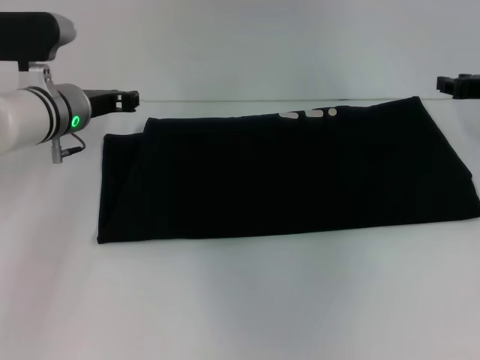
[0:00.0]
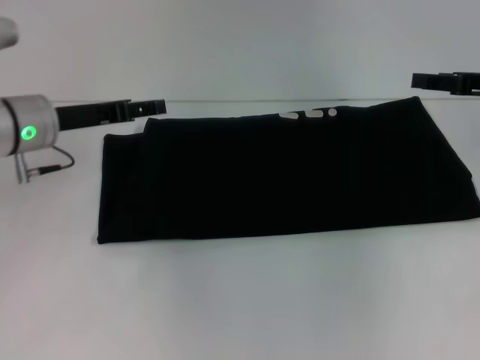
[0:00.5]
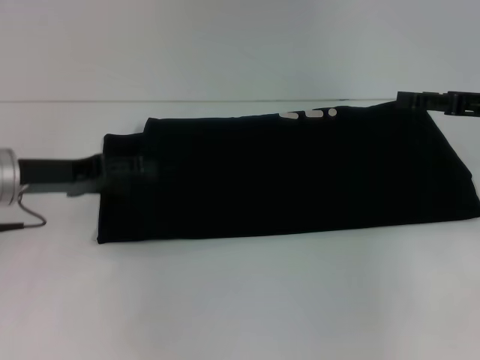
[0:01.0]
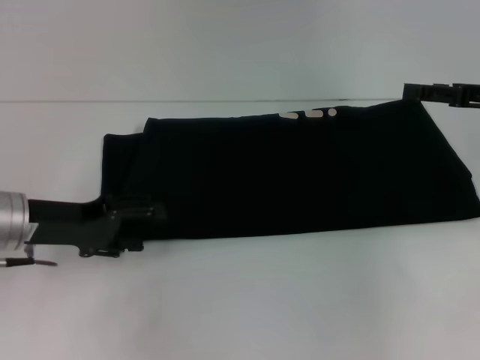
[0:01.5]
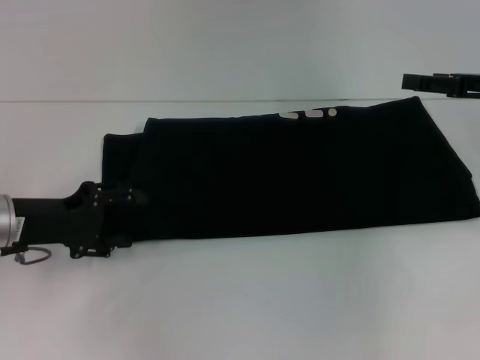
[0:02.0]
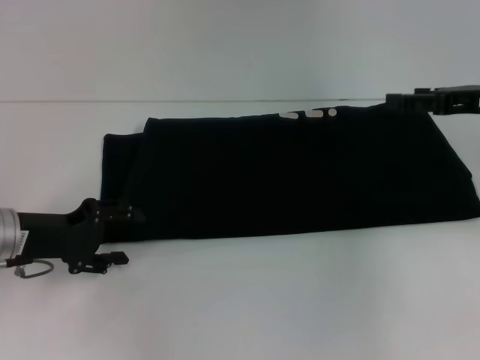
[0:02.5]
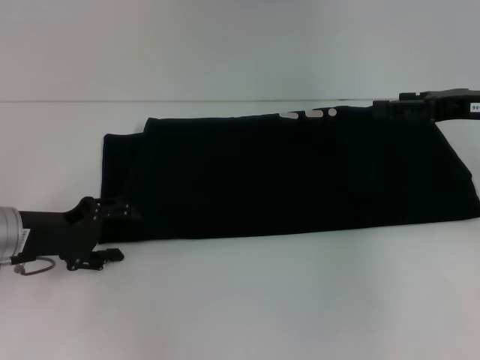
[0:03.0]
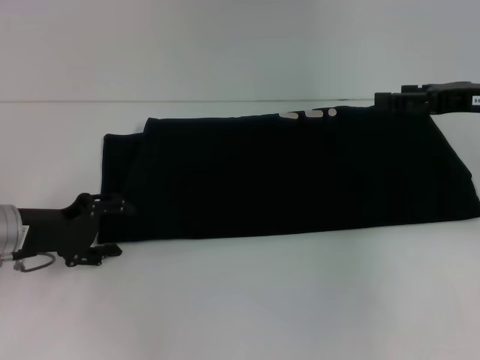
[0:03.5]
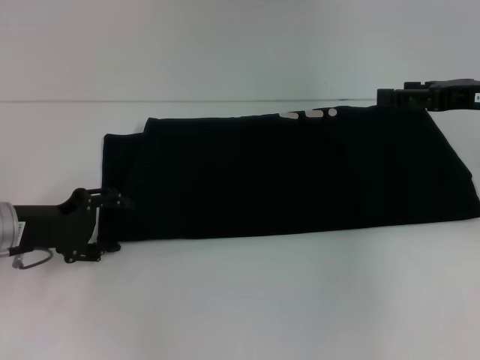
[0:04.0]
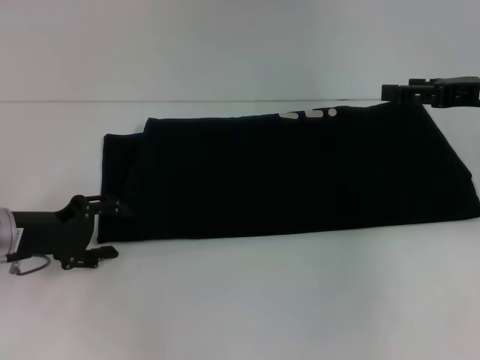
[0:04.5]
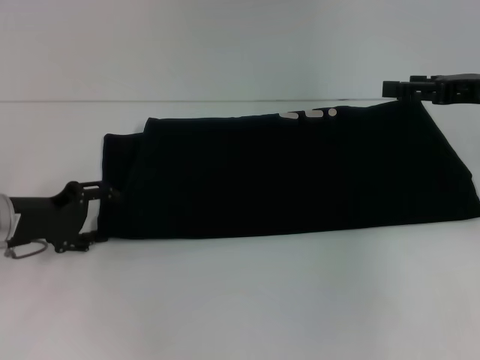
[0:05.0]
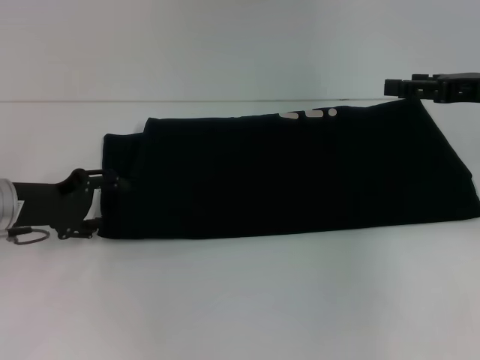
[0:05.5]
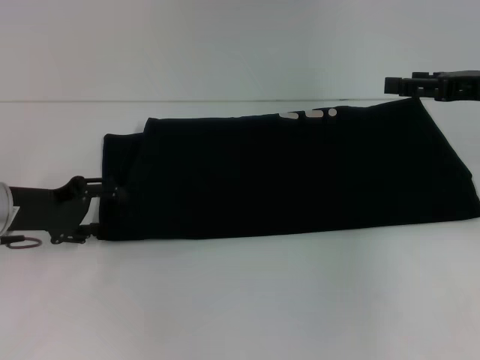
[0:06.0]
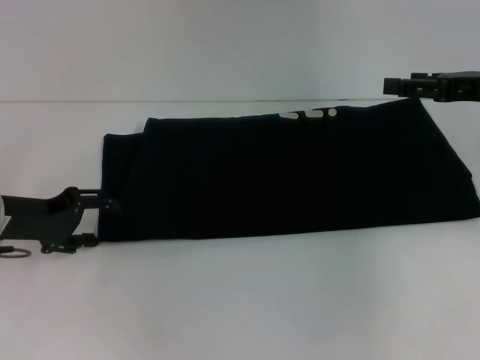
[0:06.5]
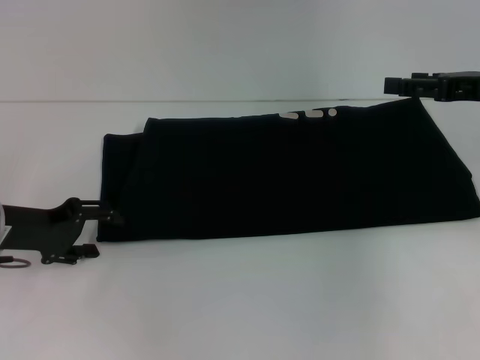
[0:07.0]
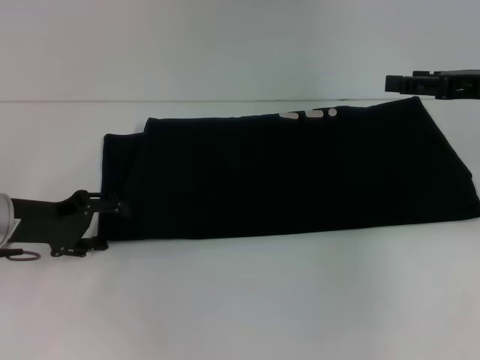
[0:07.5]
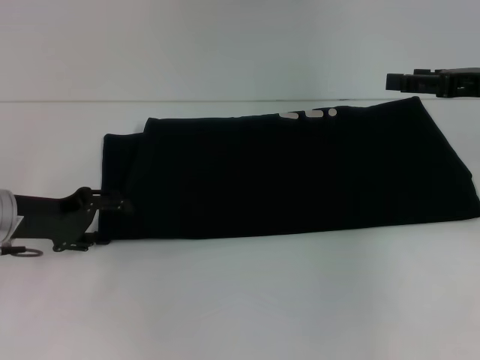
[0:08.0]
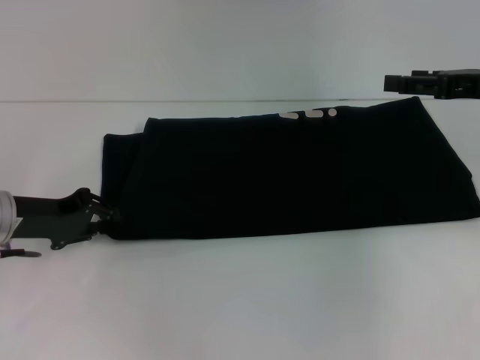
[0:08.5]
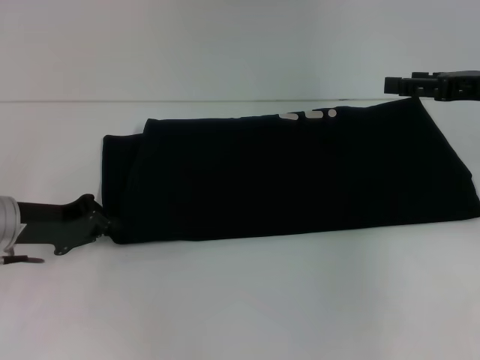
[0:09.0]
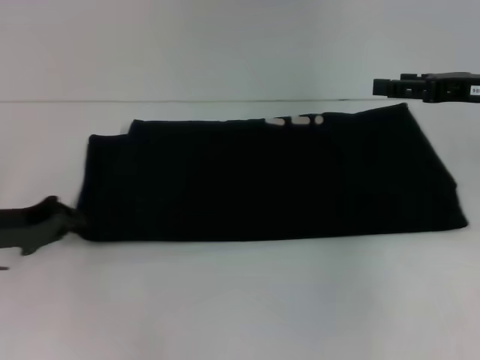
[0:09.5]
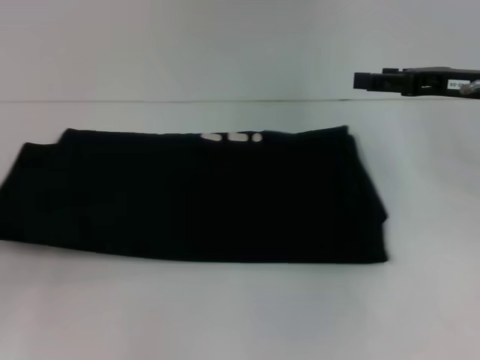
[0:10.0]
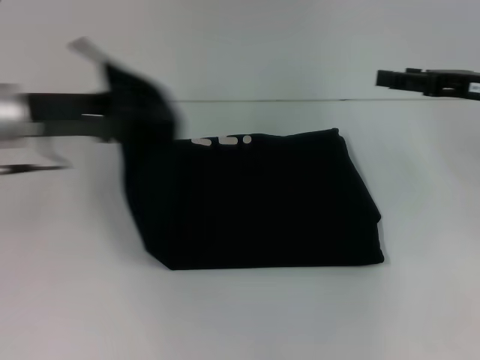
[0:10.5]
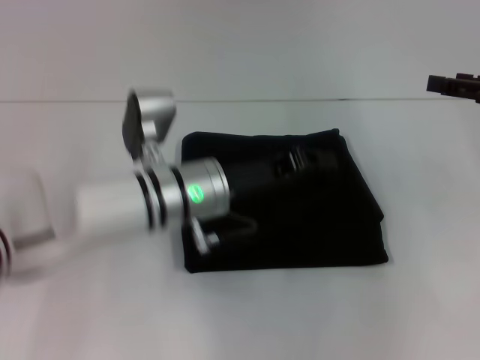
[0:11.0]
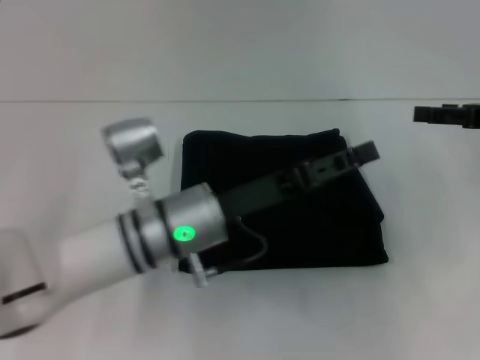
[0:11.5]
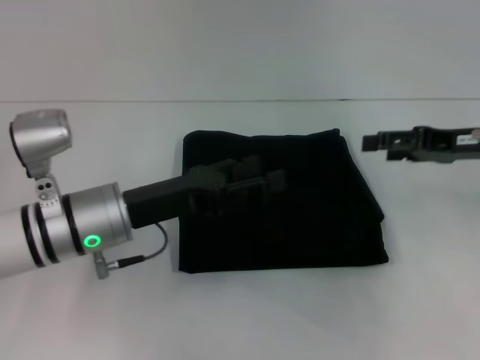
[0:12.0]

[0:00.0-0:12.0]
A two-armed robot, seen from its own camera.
Step, 0:00.0 to 0:11.5: Fold the clothes with your left hand.
0:00.0 to 0:02.0: The right gripper opens up. Meanwhile the left gripper travels backward and to the left by some 15 cm, and opens up.
0:02.0 to 0:08.0: The grippers stay close to where they were, moving slightly.
0:08.0 to 0:10.0: The left gripper is displaced to the left and backward by some 10 cm, and closes.
0:10.0 to 0:12.0: The left gripper travels to the right by roughly 25 cm, and opens up.

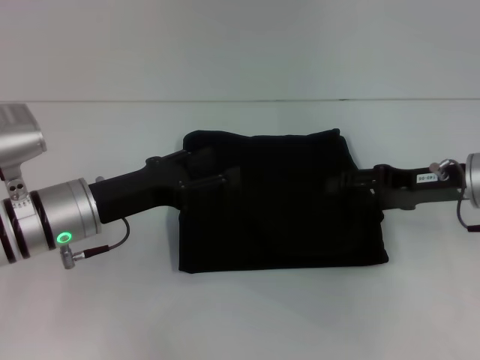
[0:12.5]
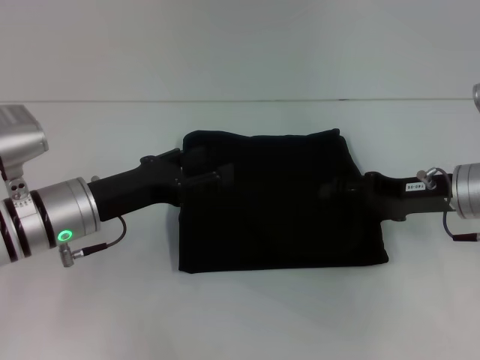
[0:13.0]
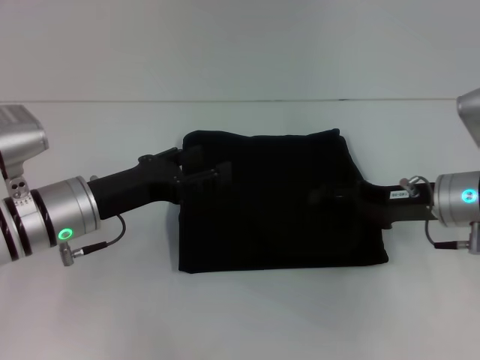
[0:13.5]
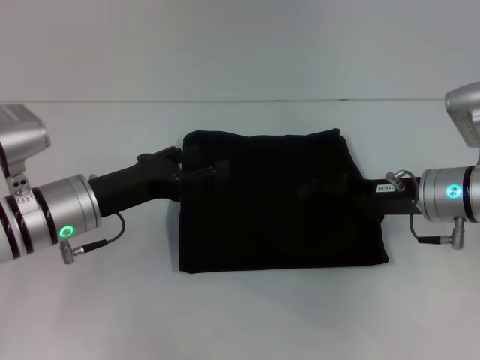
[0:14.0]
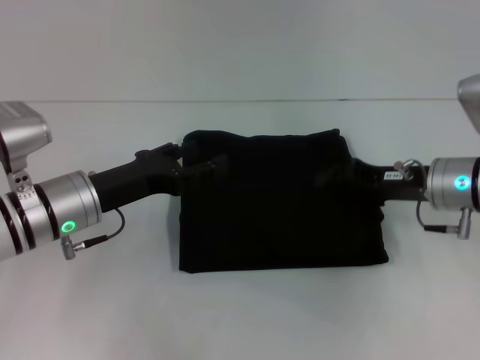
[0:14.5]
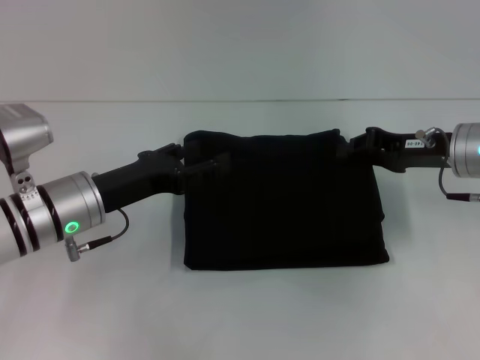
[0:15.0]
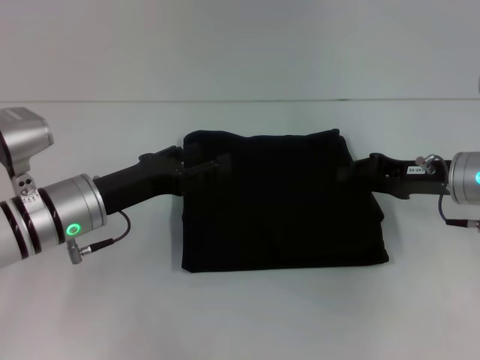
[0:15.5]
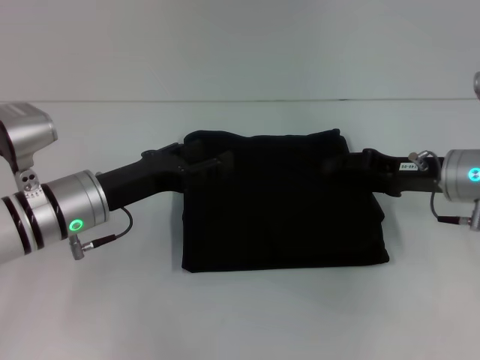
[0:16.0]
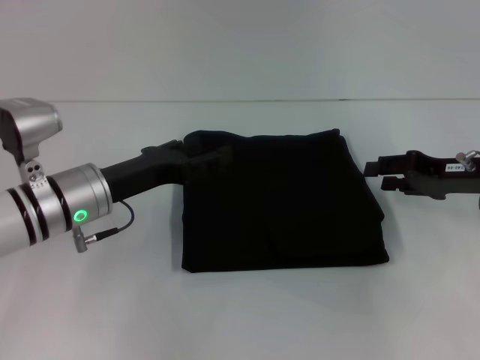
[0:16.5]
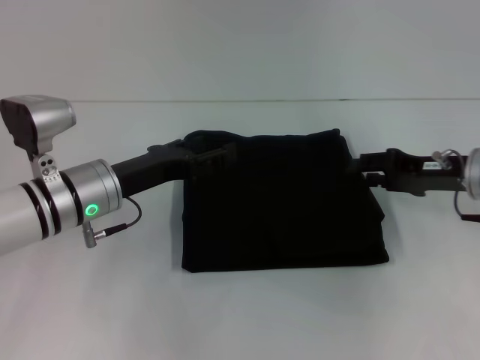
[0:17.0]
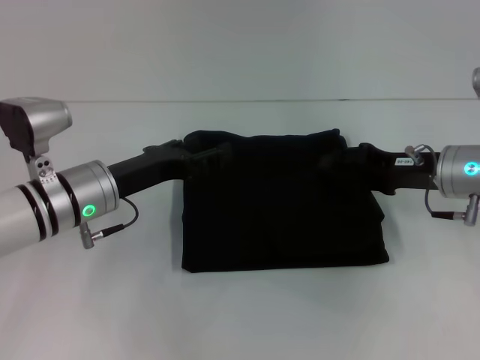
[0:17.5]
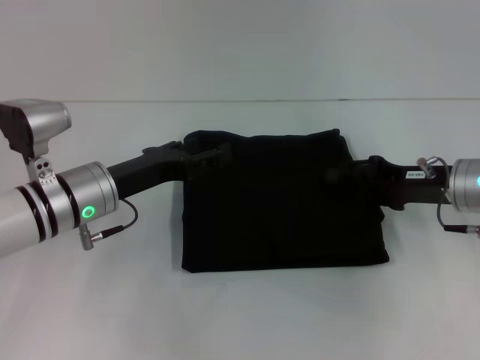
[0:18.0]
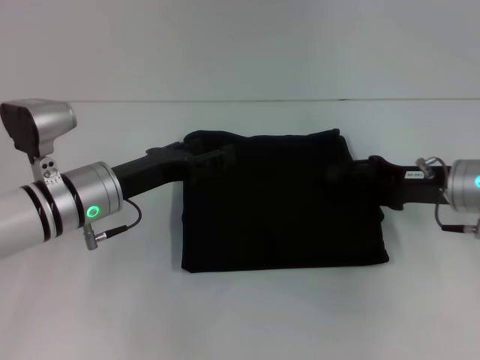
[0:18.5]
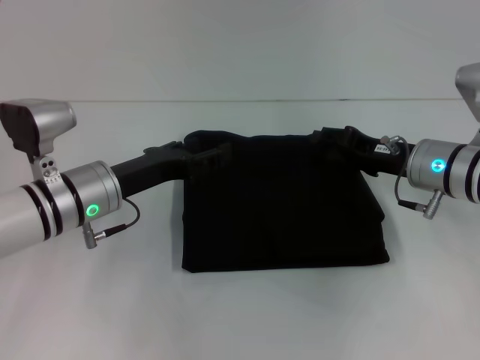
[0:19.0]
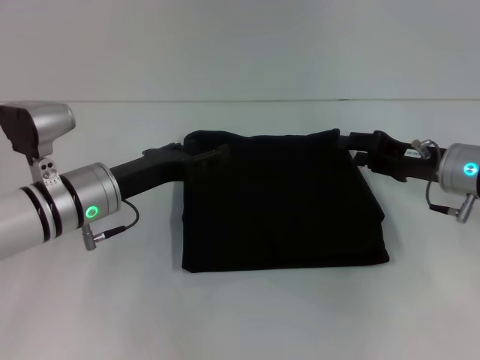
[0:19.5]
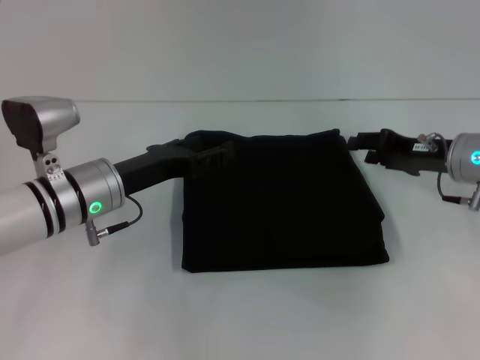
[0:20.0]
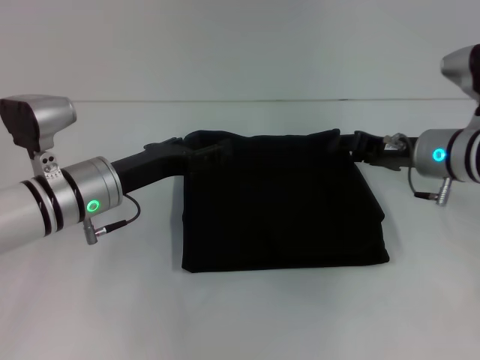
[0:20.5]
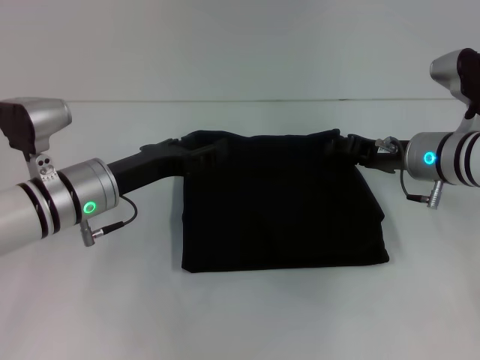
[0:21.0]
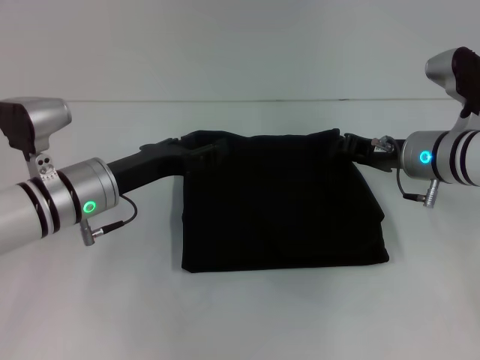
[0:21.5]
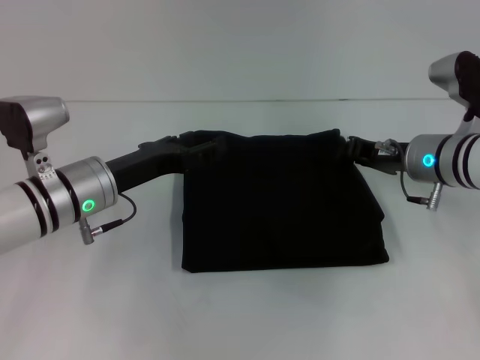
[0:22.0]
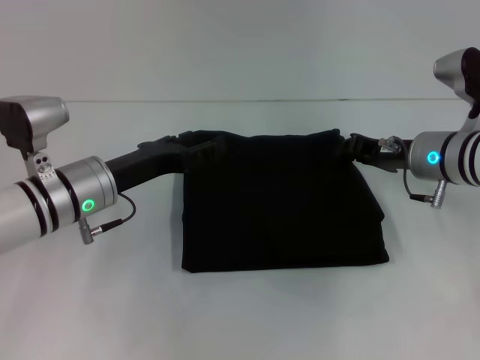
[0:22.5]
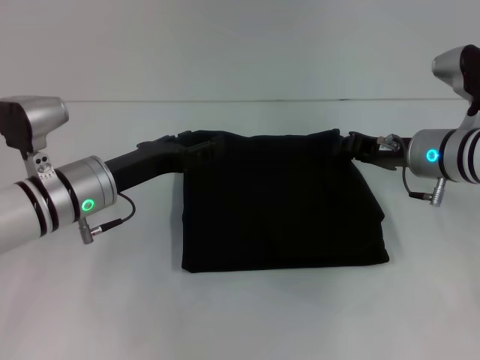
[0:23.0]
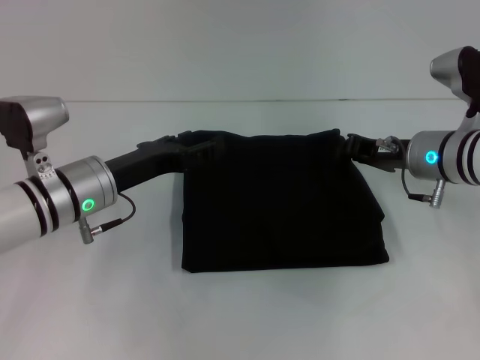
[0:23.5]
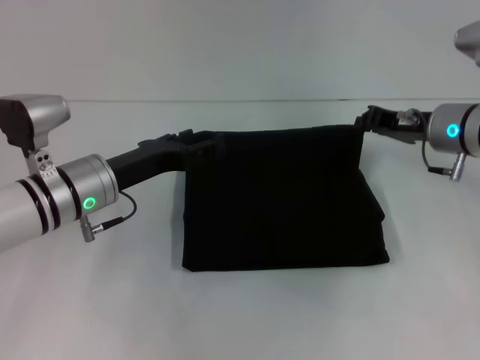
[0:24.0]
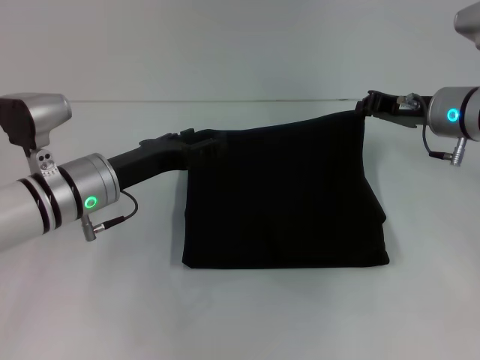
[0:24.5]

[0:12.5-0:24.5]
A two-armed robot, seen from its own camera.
0:12.5 to 0:14.5: The right gripper closes its fingers.
0:14.5 to 0:16.5: The right gripper travels to the right by approximately 5 cm.
0:16.5 to 0:18.5: The grippers move only a little.
0:18.5 to 0:20.5: The right gripper changes place by approximately 5 cm.
0:20.5 to 0:22.5: The right gripper closes up.
0:22.5 to 0:24.5: The grippers stay close to where they were, moving slightly.

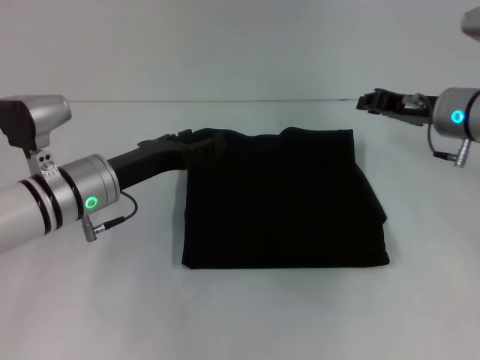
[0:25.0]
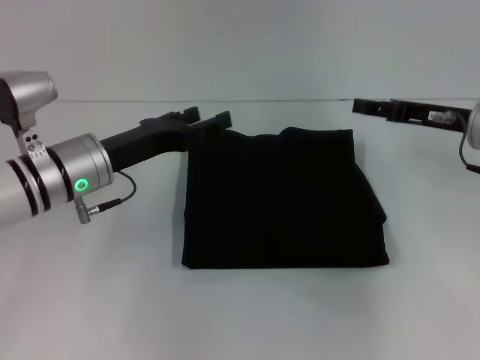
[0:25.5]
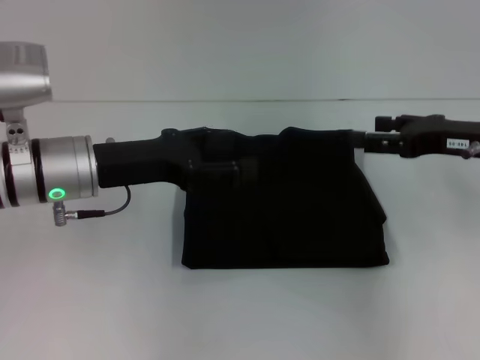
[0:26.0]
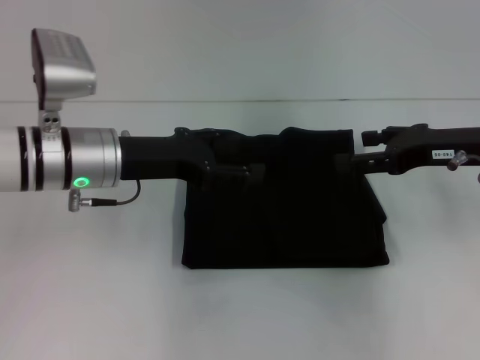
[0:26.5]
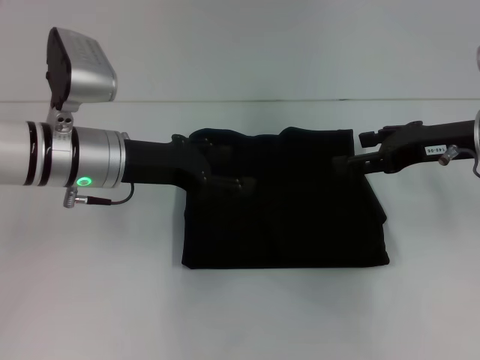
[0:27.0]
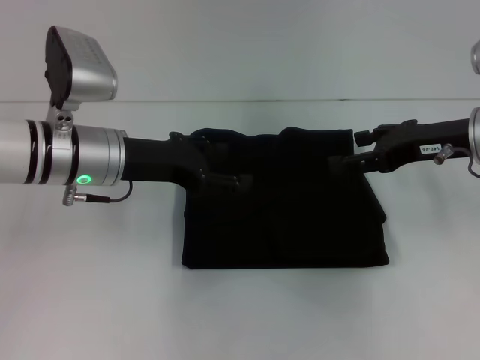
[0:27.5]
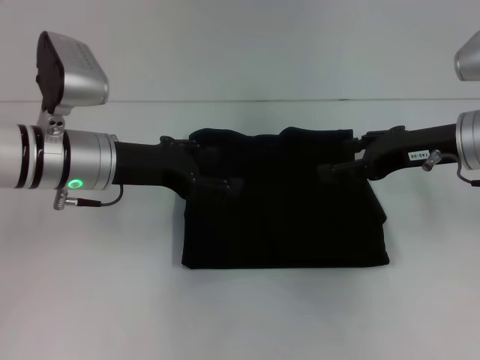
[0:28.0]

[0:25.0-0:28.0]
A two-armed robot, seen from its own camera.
0:25.0 to 0:26.5: The right gripper moves backward, about 5 cm, and opens its fingers, while the left gripper goes about 5 cm upward.
0:26.5 to 0:28.0: The grippers move only a little.
